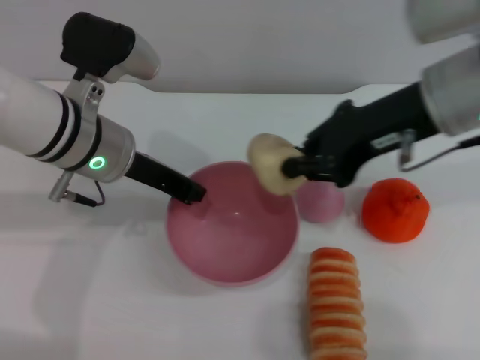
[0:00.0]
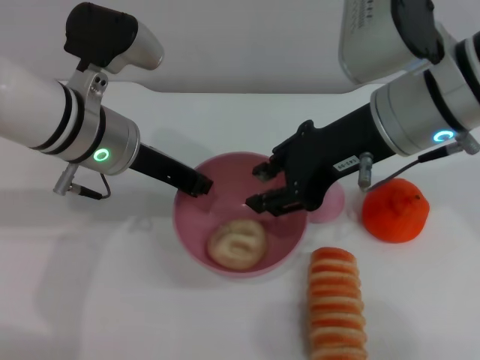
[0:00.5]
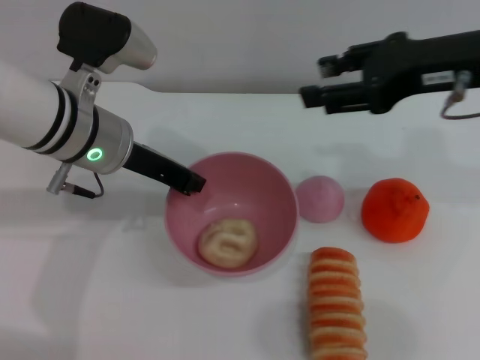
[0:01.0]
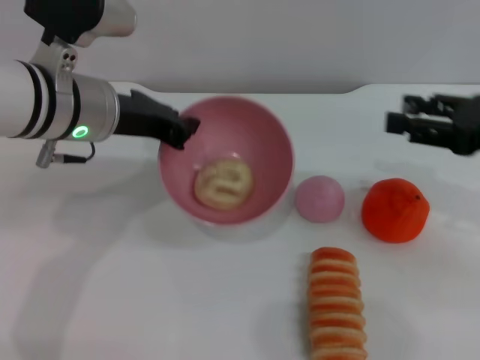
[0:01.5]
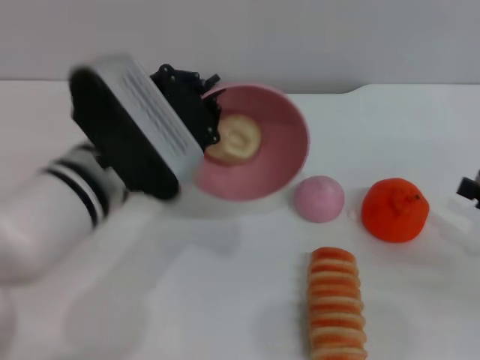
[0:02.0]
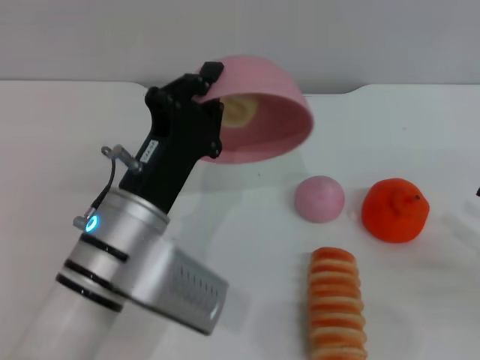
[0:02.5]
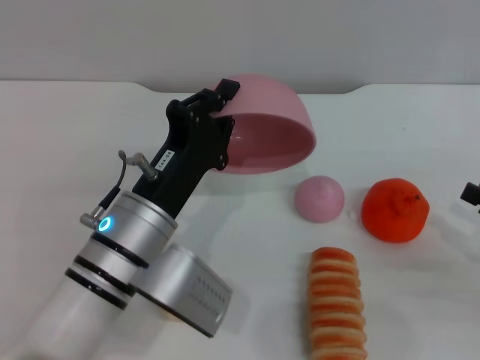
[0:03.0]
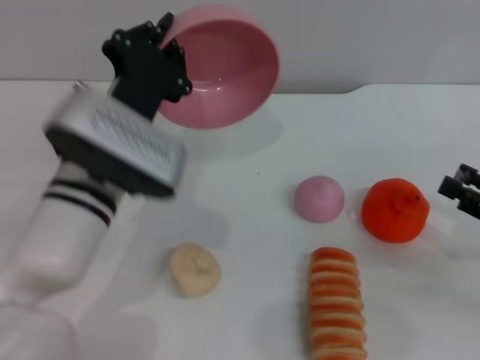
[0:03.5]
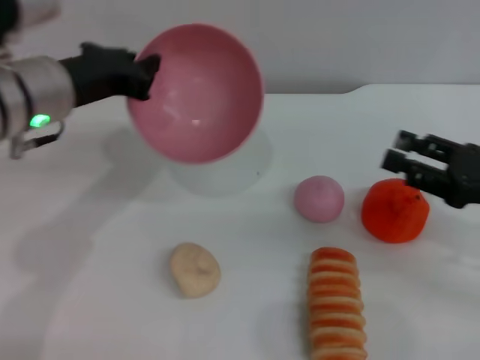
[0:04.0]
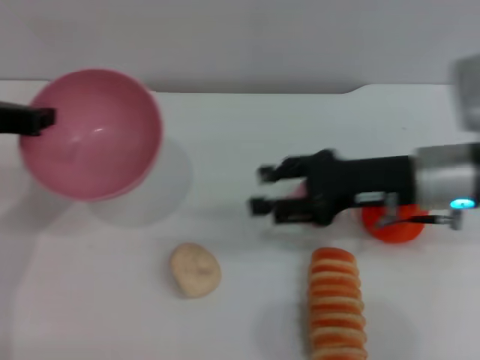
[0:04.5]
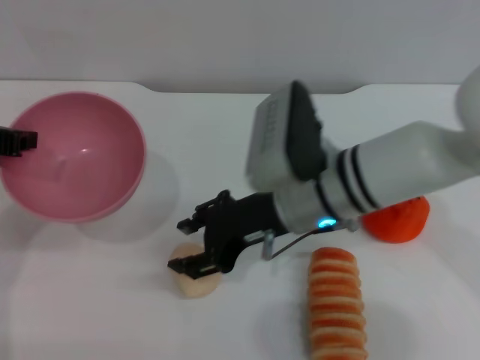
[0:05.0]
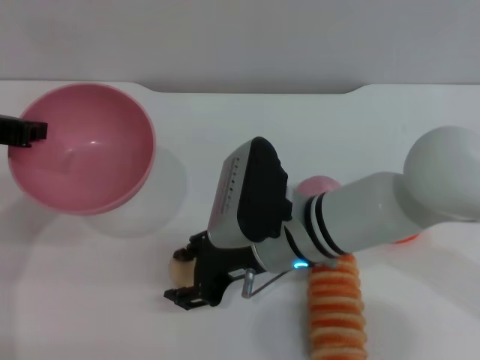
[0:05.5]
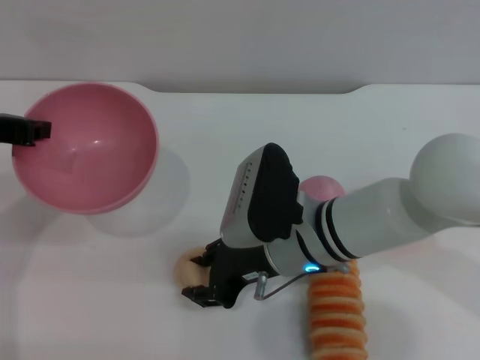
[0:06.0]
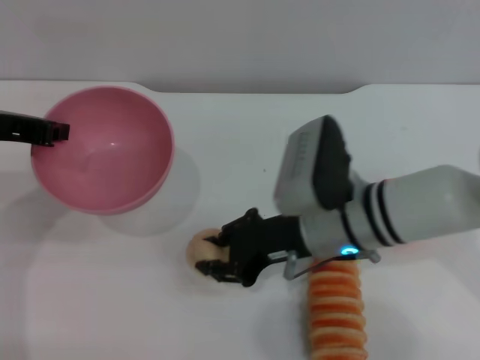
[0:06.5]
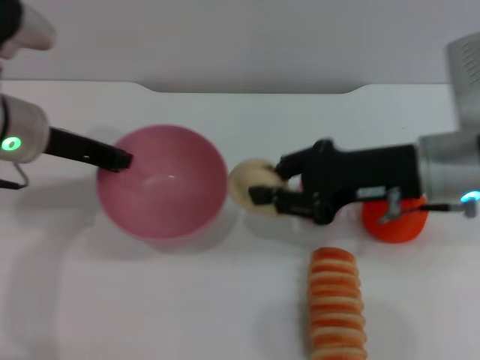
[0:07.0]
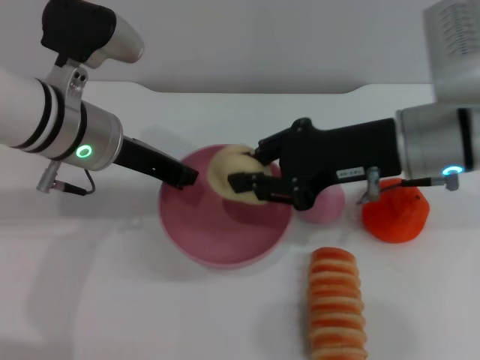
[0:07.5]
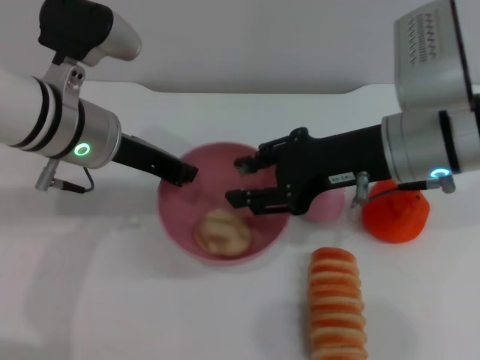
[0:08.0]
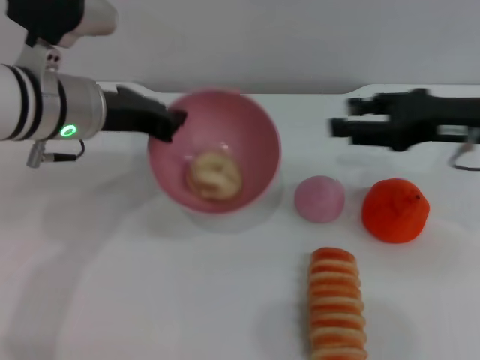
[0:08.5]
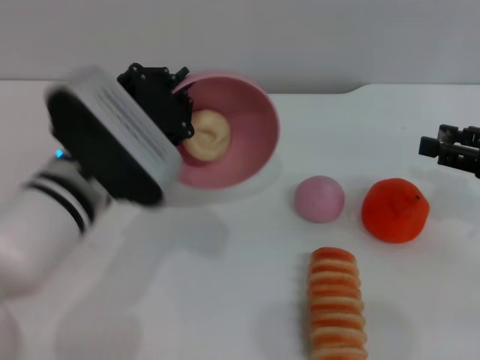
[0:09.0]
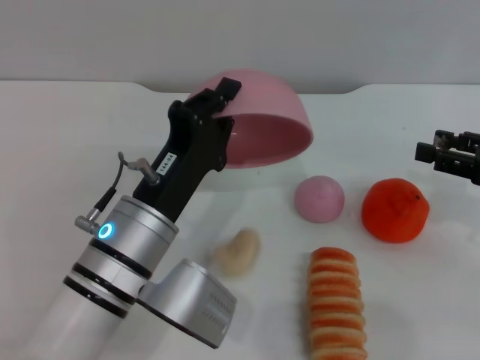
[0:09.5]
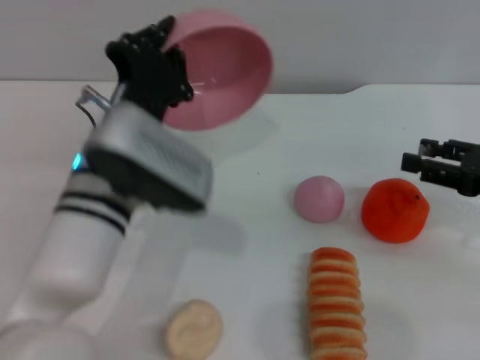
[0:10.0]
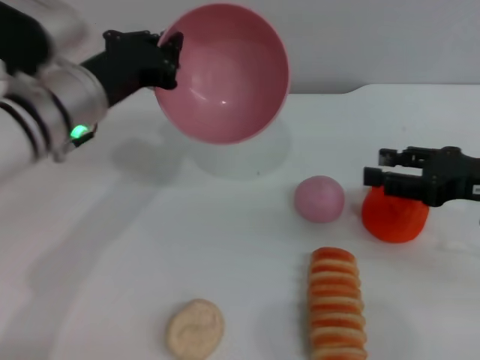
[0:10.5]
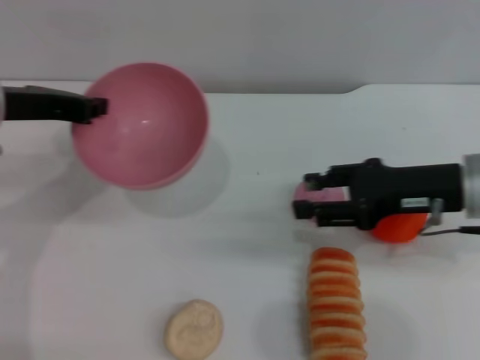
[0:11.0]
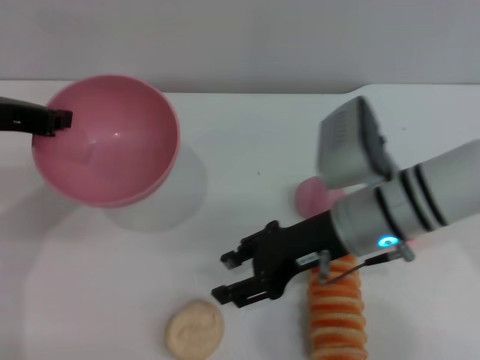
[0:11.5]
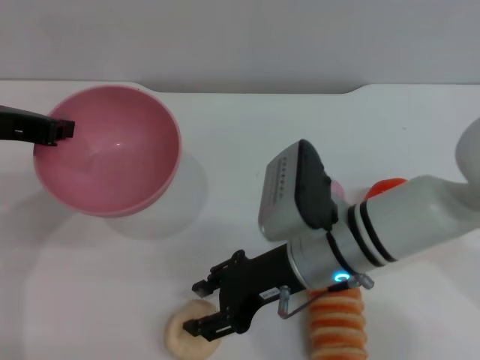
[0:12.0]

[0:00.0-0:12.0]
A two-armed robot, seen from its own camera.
Task of the whole recording: put the egg yolk pastry into the pink bowl and pour it out repeatedly.
Step, 0.0 to 1.0 s: Place the egg yolk pastry into the bowl.
Step, 2.0 to 3.5 s: Pour the egg yolk pastry out of bowl.
Step, 4.0 to 6.5 s: Pick up the egg yolk pastry with the right gripper.
Step, 7.0 to 8.5 s: Place the egg yolk pastry into the bowl.
Step, 9.0 to 10.0 s: Pour the egg yolk pastry out of bowl.
0.0 to 2.0 s: The right gripper shifts some 30 cm to the right, downward and backward, and opens up. Meanwhile the left gripper moves backward, approximately 5 cm.
2.0 to 4.0 s: The left gripper heads to the left and forward, covering approximately 10 cm; the right gripper travels to the left by approximately 5 cm.
4.0 to 6.0 s: The right gripper travels to the left by approximately 25 cm. The left gripper moves to the left, some 10 cm.
6.0 to 8.0 s: The right gripper goes approximately 15 cm upward and to the right, and closes; the left gripper travels to the right by approximately 10 cm.
8.0 to 10.0 s: The left gripper heads backward, to the right and downward, covering approximately 10 cm. Meanwhile the right gripper is displaced to the right by roughly 15 cm, and opens up.
10.0 to 12.0 s: The left gripper goes about 20 cm to the left and upward. Meanwhile the right gripper heads to the left, covering approximately 25 cm.

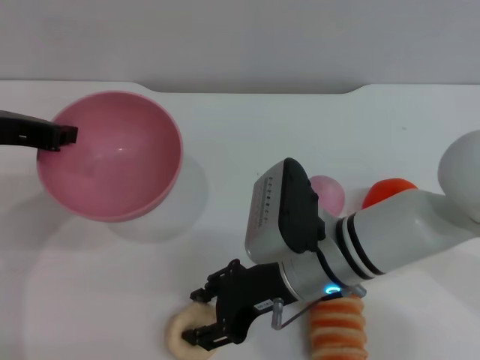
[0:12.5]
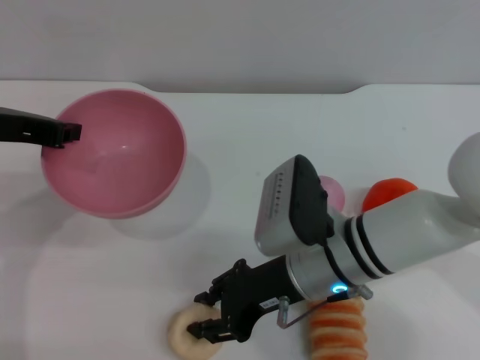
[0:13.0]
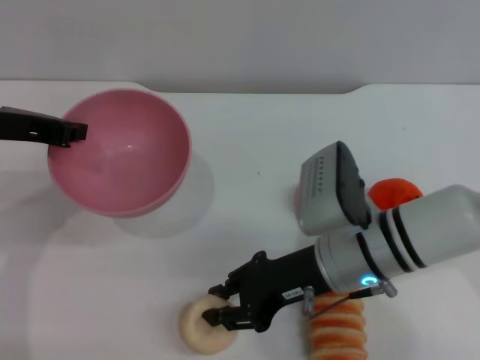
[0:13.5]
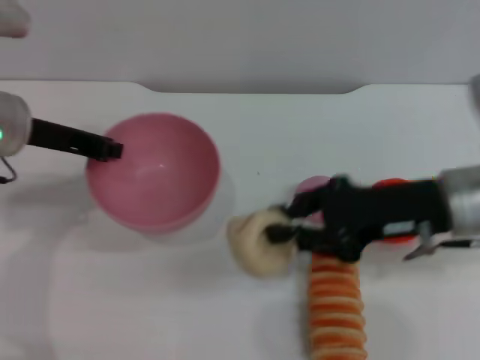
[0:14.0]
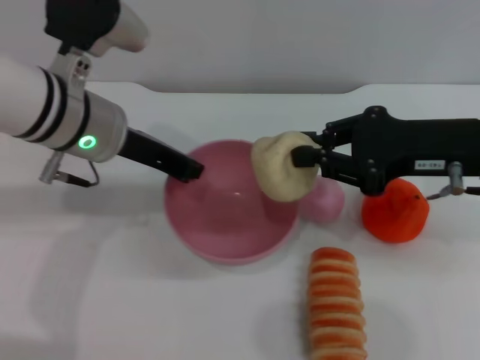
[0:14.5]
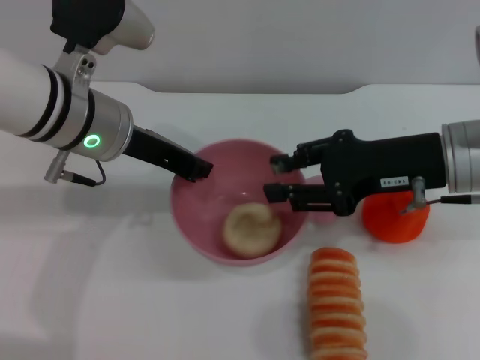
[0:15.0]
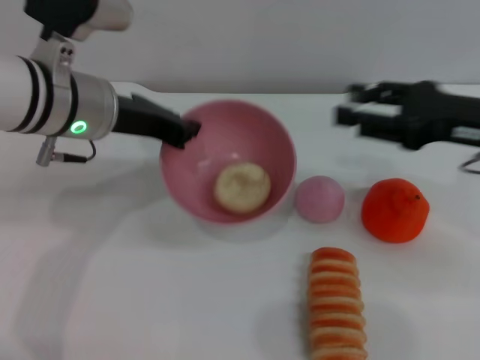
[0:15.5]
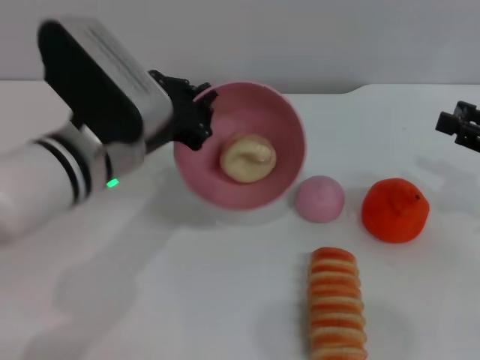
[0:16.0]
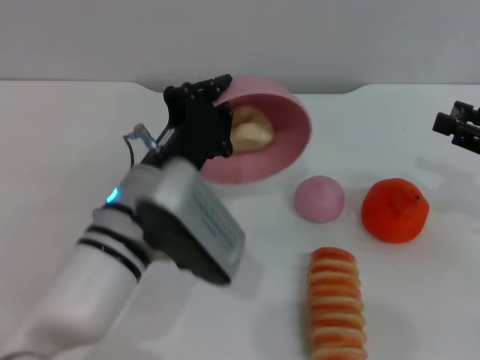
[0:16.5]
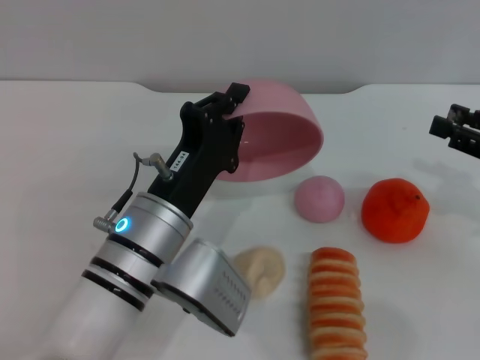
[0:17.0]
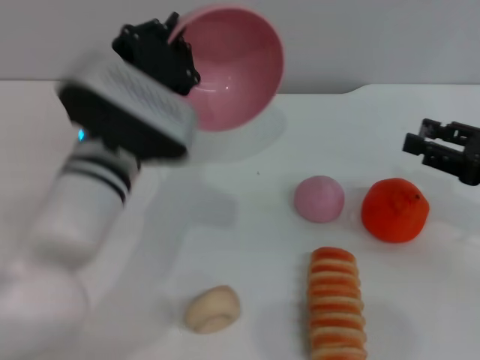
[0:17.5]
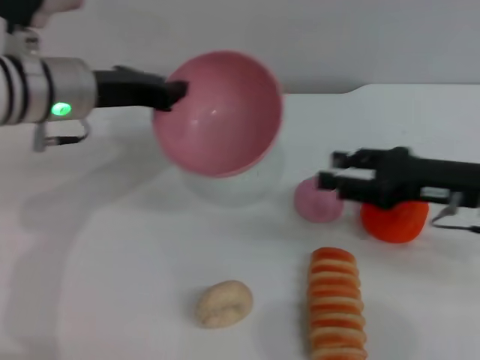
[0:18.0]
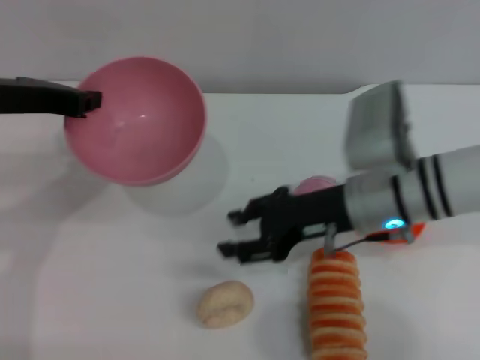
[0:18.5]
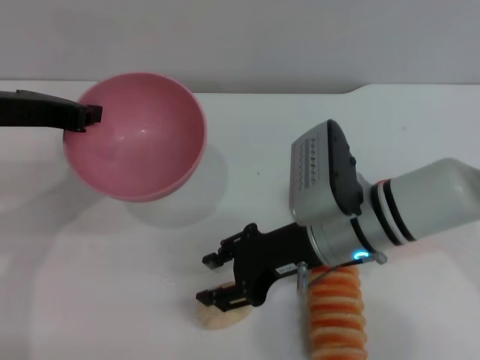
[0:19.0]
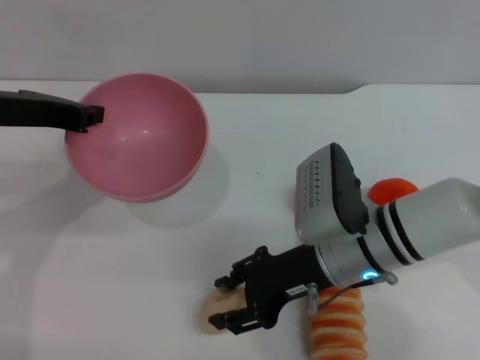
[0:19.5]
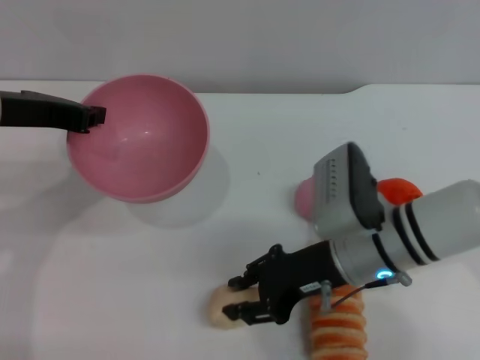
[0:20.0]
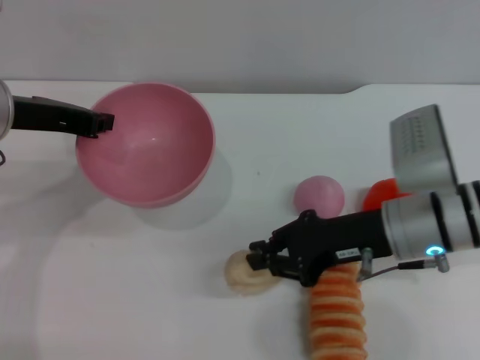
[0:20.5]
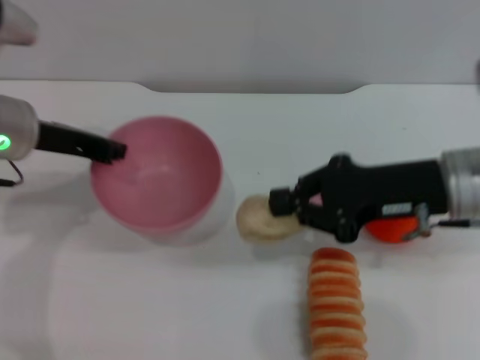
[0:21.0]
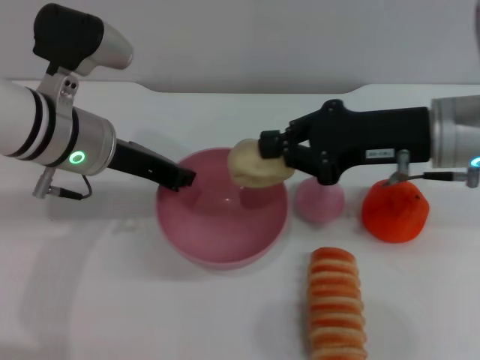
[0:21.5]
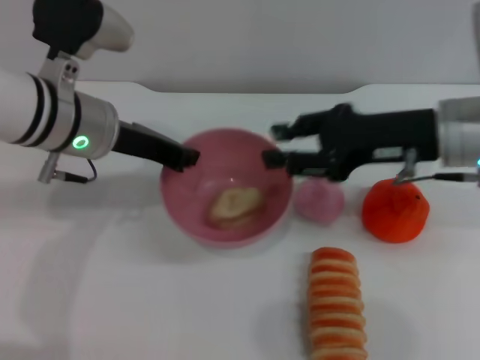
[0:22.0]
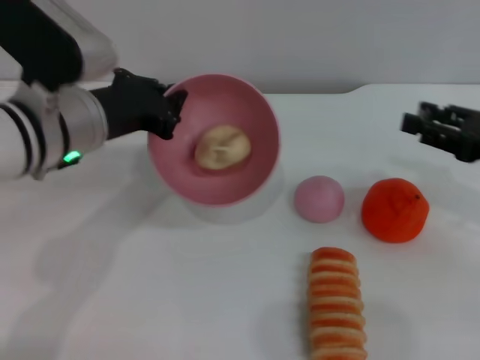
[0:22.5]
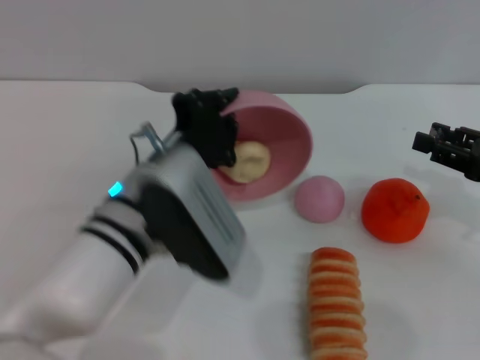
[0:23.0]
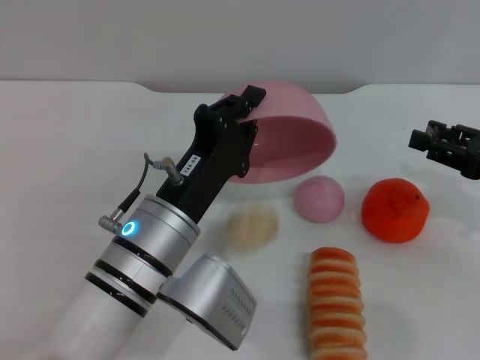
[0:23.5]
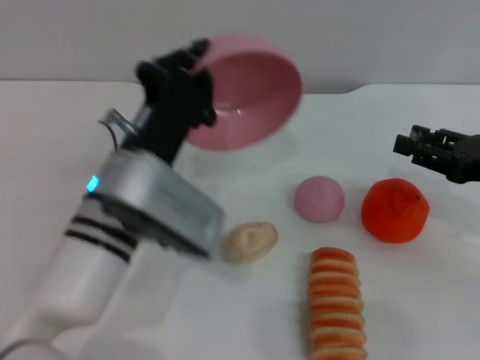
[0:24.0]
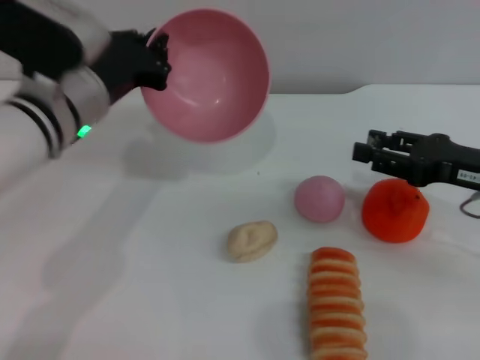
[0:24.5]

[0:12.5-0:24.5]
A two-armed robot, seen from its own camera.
Task of the whole recording: put the egg yolk pastry into the pink bowl and pour it out repeatedly.
Step, 14.0 to 15.5 s: Place the egg yolk pastry into the bowl.
Step, 16.0 to 17.5 s: Pour the egg yolk pastry out of bowl.
Step, 18.0 to 20.5 s: Pick up the egg yolk pastry with the right gripper.
Step, 21.0 to 22.0 s: Place the egg yolk pastry into the bowl.
Step, 22.5 to 23.5 s: Pour the egg yolk pastry out of bowl.
12.5 to 14.5 s: The left gripper moves to the right, roughly 10 cm. The right gripper goes approximately 20 cm to the right and upward, and closes.
14.5 to 16.5 s: The right gripper is displaced to the right by about 10 cm, and opens its fingers. Meanwhile the left gripper travels backward, downward and to the right by approximately 15 cm.
16.5 to 18.5 s: The right gripper moves to the left, about 20 cm, while the left gripper goes roughly 20 cm to the left, upward and forward.
18.5 to 20.5 s: The right gripper closes its fingers.
20.5 to 22.5 s: The right gripper shifts roughly 15 cm to the right, and opens. Meanwhile the left gripper shifts about 5 cm to the right.
22.5 to 24.5 s: The left gripper moves some 10 cm backward and comes back.

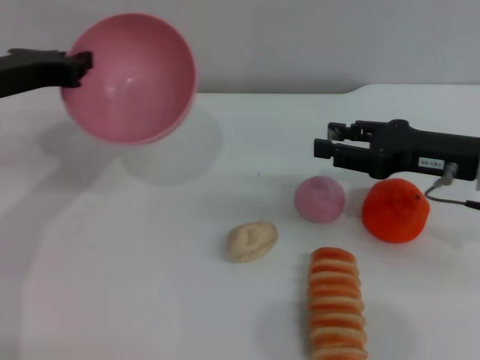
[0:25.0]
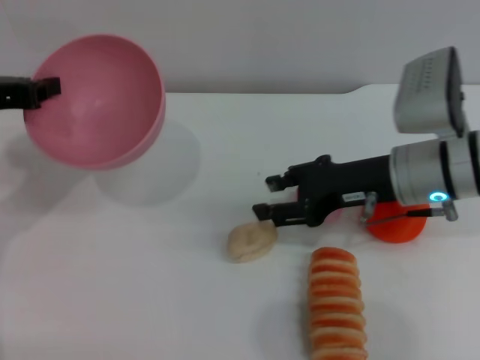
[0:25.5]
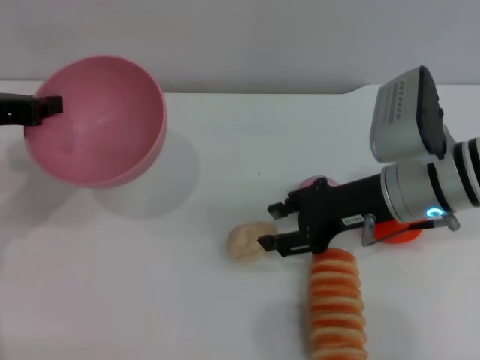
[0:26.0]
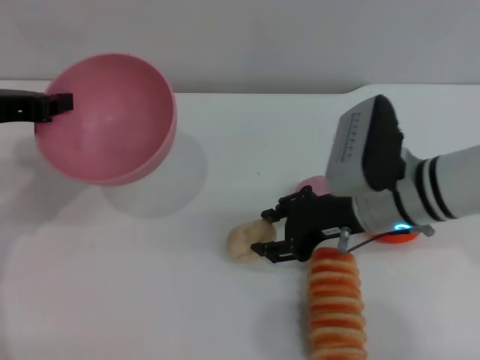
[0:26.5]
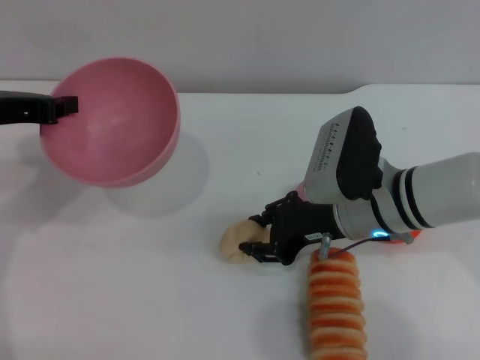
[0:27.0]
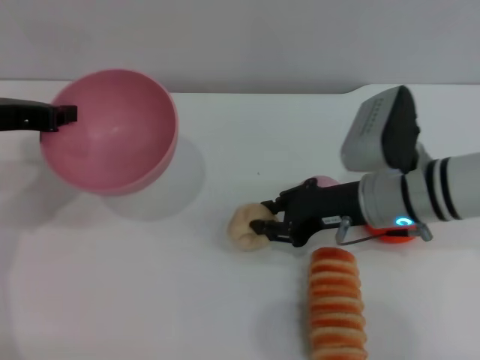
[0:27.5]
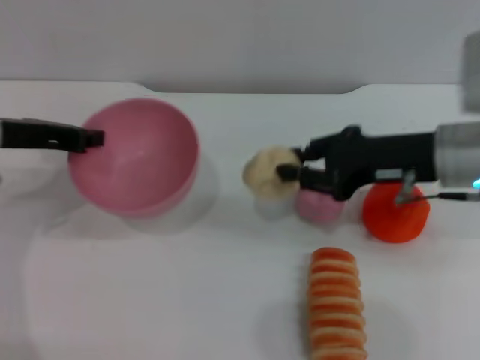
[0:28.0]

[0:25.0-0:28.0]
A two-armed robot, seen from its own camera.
Task of the whole recording: put the egg yolk pastry into the pink bowl and pour it out repeatedly.
Step, 25.0 to 27.5 s: Pick up the egg yolk pastry with the right gripper.
25.0 to 26.5 s: The right gripper travels to the left by some 10 cm.
26.5 to 28.0 s: The right gripper travels upward and to the right by roughly 10 cm, and closes its fingers.
